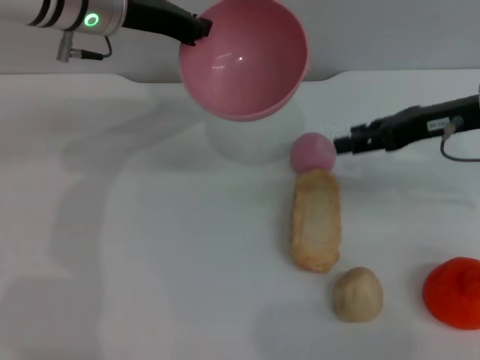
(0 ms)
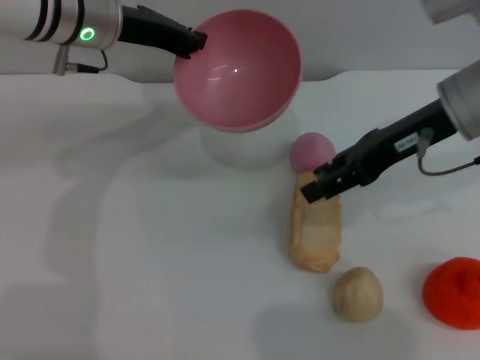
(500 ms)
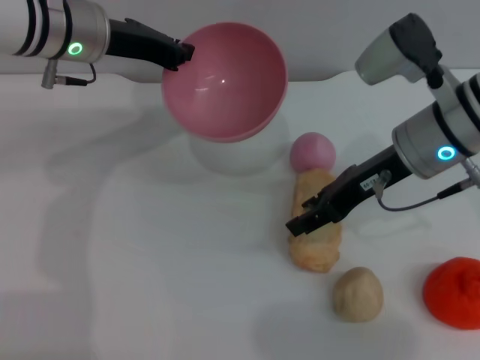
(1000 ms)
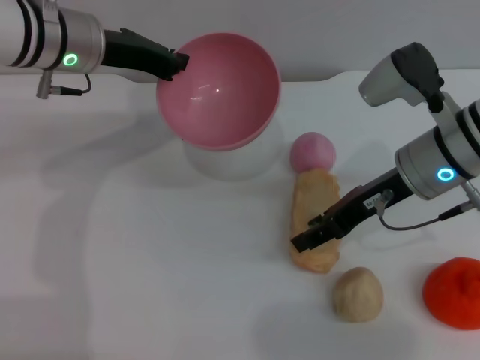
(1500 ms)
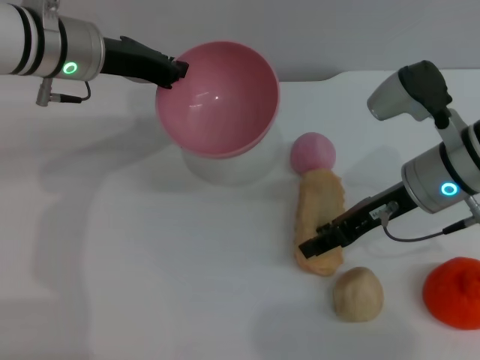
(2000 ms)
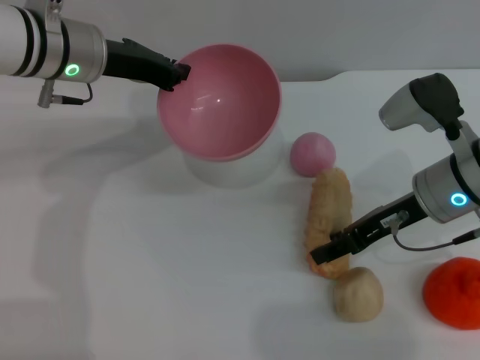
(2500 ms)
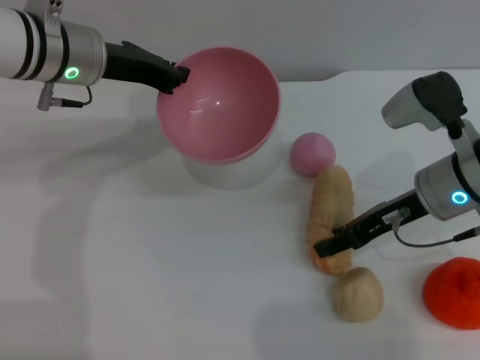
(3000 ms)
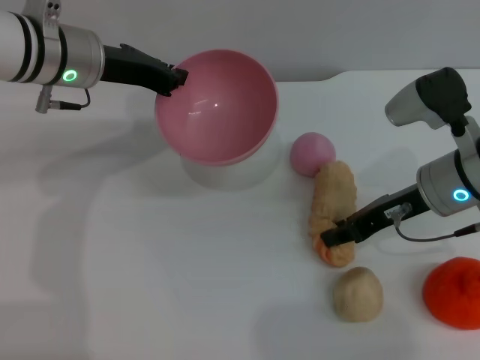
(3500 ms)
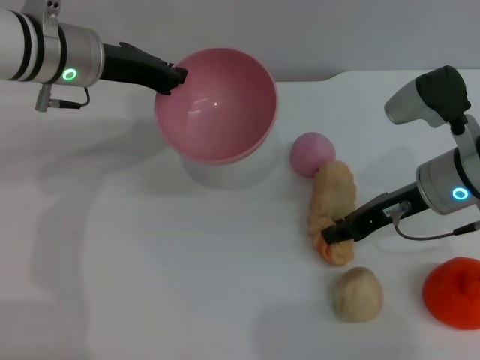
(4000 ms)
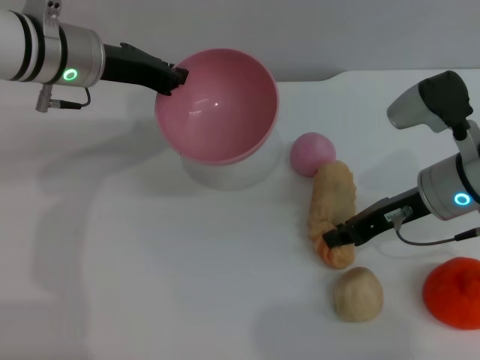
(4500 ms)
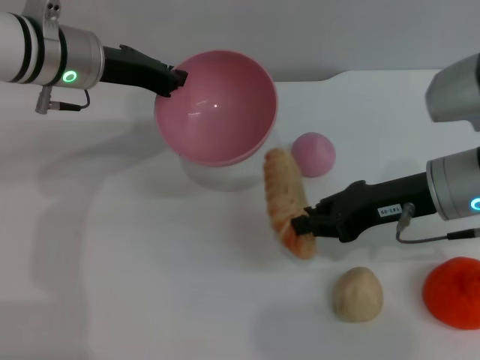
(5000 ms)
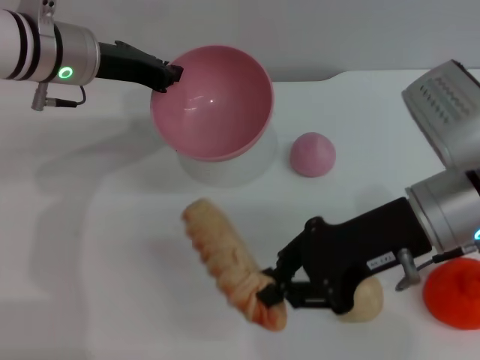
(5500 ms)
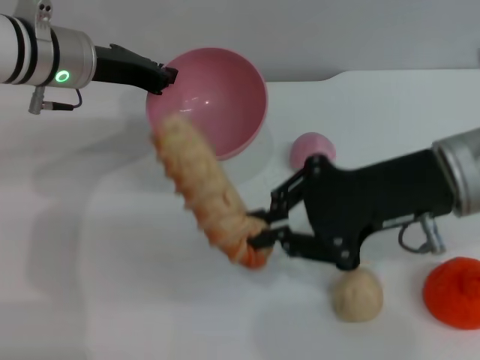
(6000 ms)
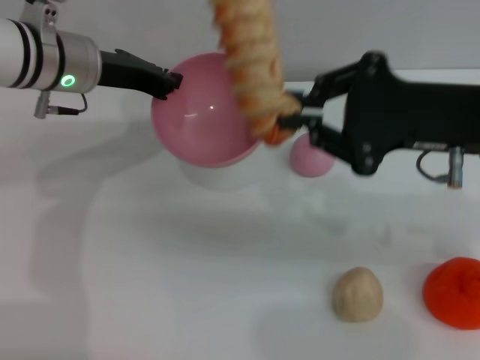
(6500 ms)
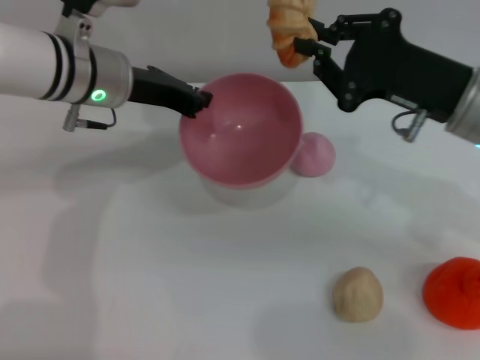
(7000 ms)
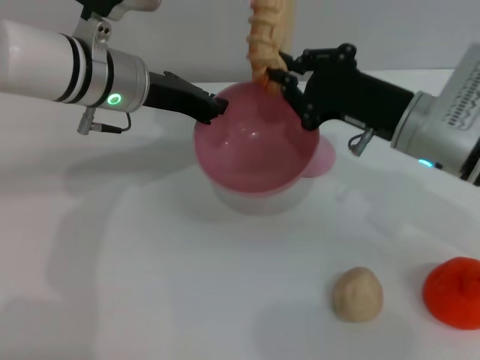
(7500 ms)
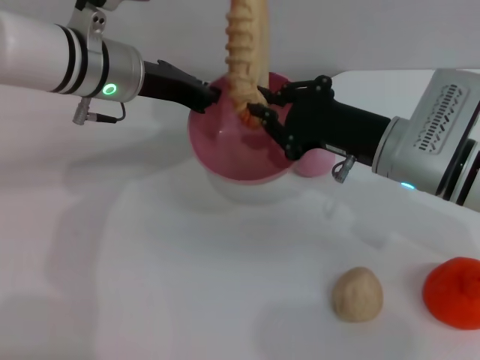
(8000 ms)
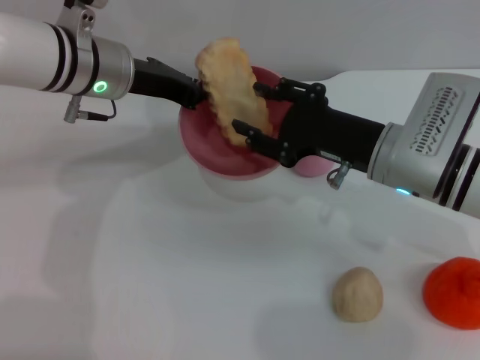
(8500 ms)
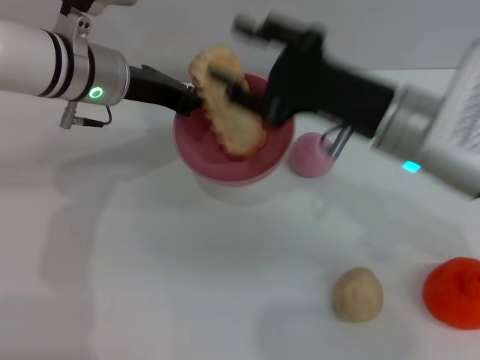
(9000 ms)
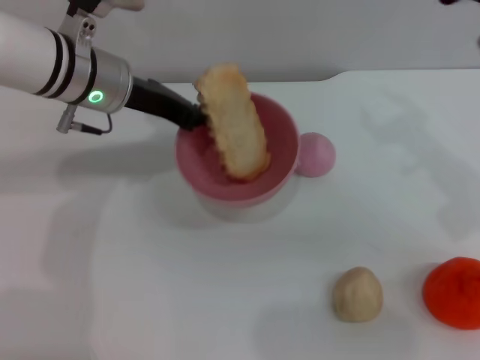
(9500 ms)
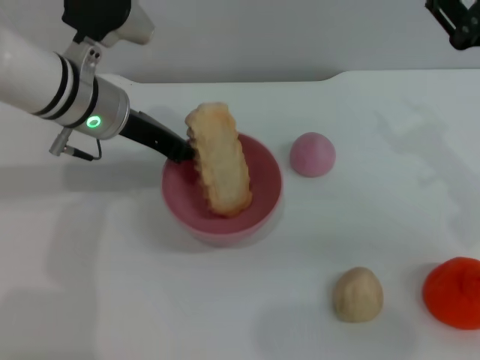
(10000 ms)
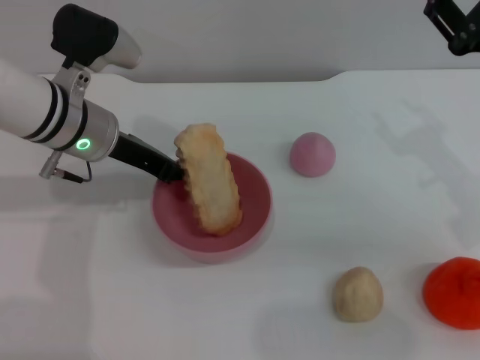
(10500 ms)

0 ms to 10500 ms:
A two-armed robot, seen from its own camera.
Task of the whole recording: put the bread into the pink bowl and pour it out repeatedly.
Step, 0 ms to 4500 ms: Pick up the bread with the right gripper.
Step, 5000 ms to 8500 ms: Place the bread into the bowl.
0 ms to 2000 ms: The right gripper heads to the left, covering about 5 cm.
2000 ms to 4000 ms: The right gripper closes its fingers.
4000 ms to 6500 ms: The right gripper heads upward and backward, covering roughly 10 cm.
6500 ms to 8500 ms: The right gripper heads downward and to the left, covering approximately 10 cm, and opens.
8500 ms to 10500 ms: The right gripper is displaced to the right and upward by some 10 cm.

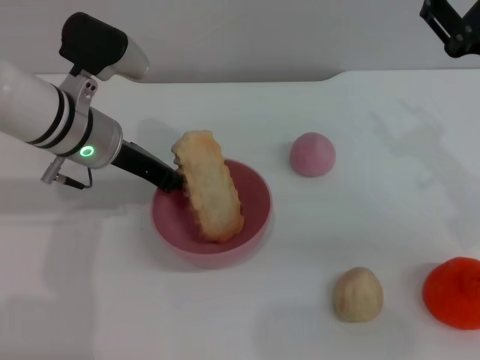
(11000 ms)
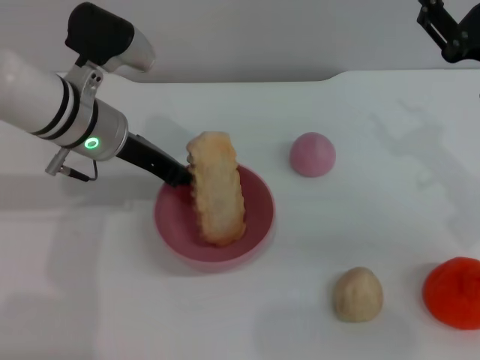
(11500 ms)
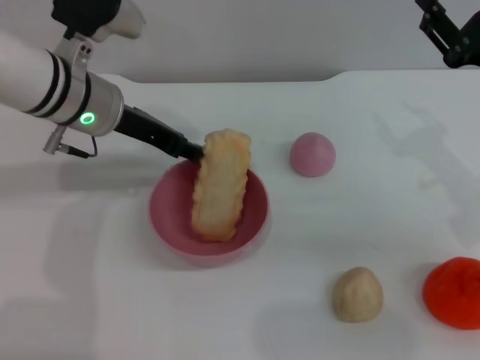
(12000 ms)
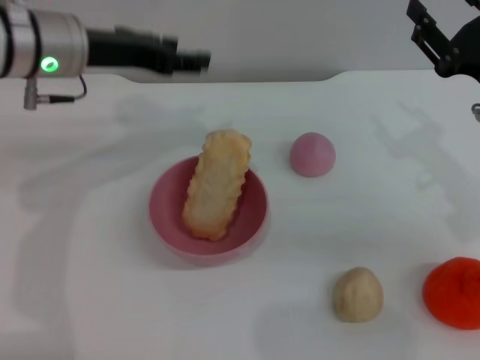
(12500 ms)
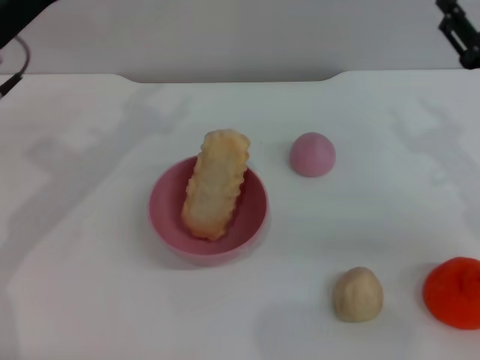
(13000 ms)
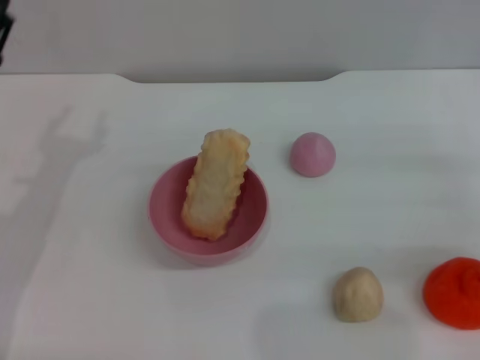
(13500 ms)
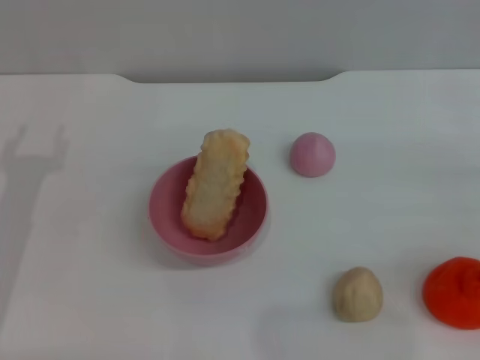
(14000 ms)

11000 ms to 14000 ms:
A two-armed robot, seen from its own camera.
Task of the whole recording: put the bread into the pink bowl and pour it out repeatedly.
11000 ms to 12500 ms: The left gripper is displaced upward by roughly 10 cm, and opens its fingers.
12500 ms to 14000 ms: The right gripper moves to the right, roughly 10 cm. The left gripper heads downward, backward and to the left, covering roughly 20 cm.
